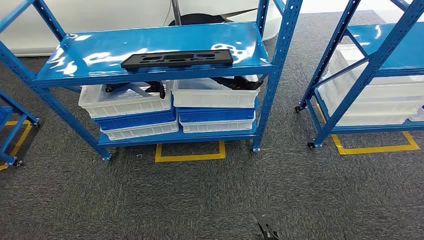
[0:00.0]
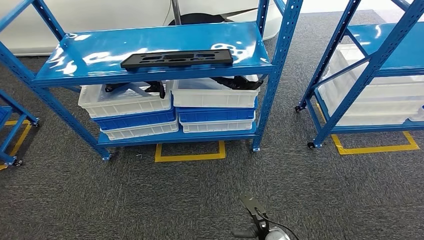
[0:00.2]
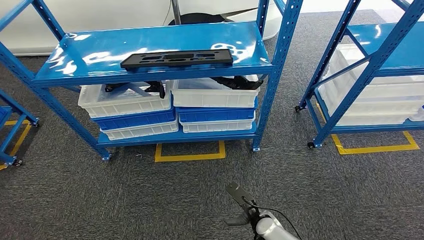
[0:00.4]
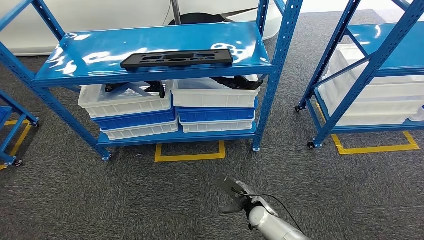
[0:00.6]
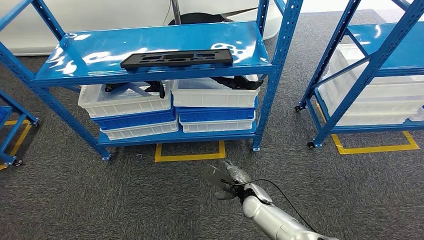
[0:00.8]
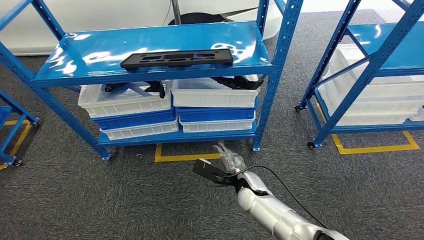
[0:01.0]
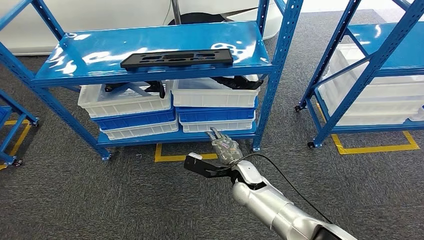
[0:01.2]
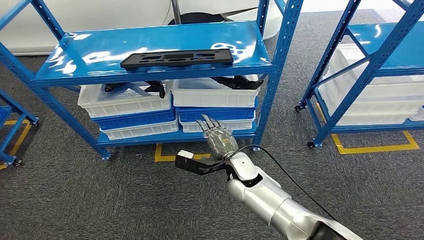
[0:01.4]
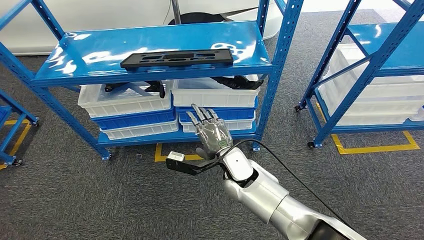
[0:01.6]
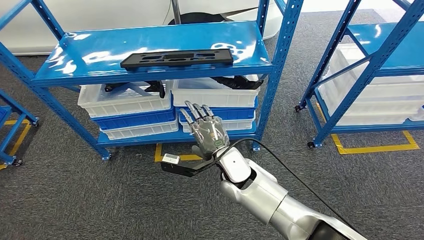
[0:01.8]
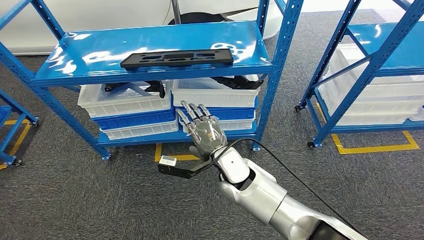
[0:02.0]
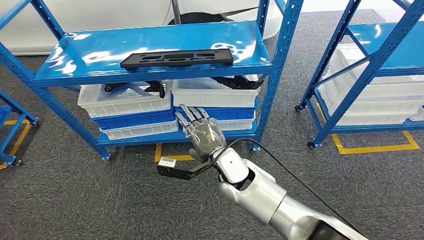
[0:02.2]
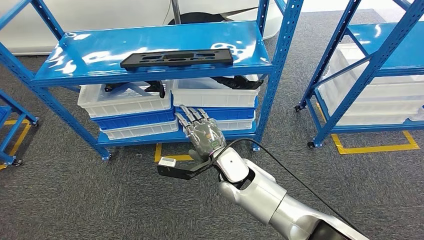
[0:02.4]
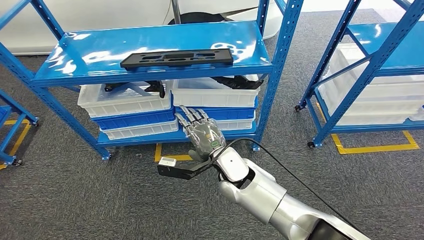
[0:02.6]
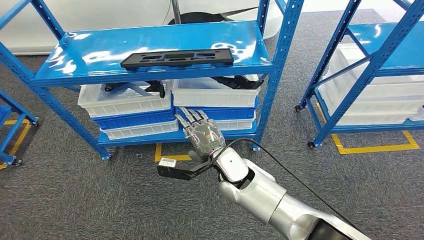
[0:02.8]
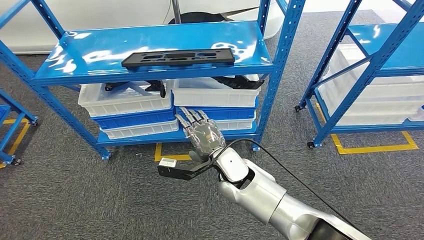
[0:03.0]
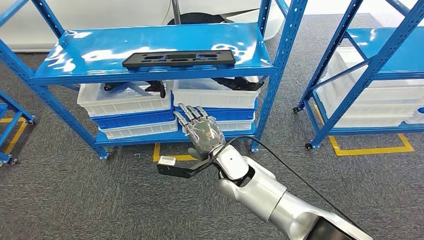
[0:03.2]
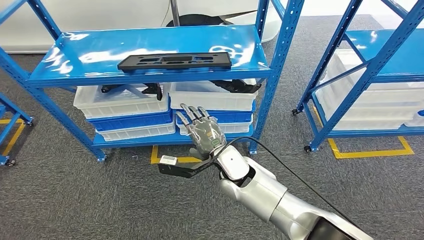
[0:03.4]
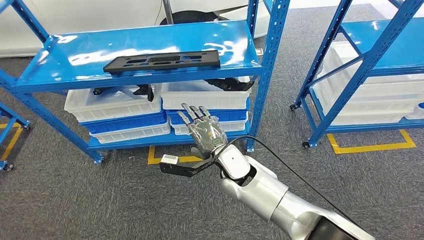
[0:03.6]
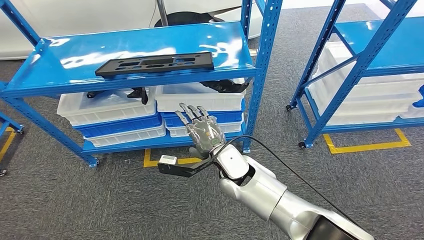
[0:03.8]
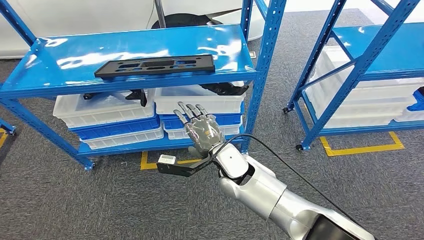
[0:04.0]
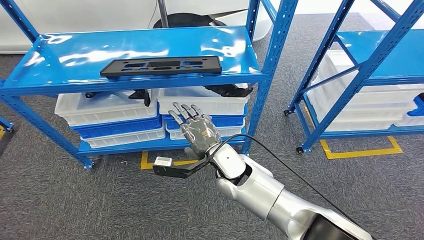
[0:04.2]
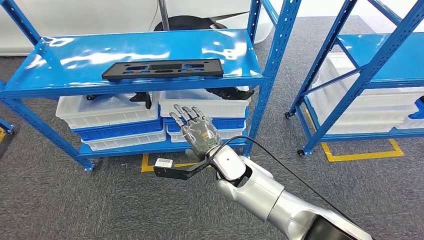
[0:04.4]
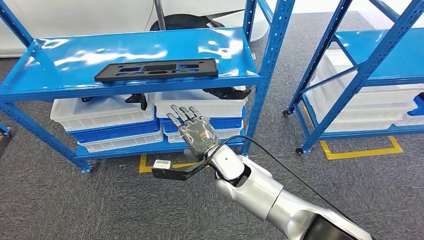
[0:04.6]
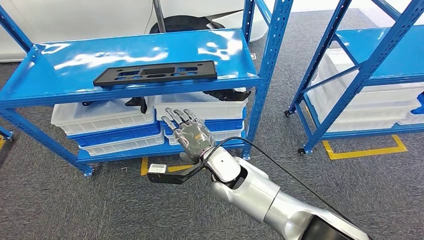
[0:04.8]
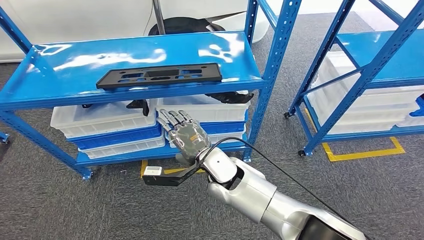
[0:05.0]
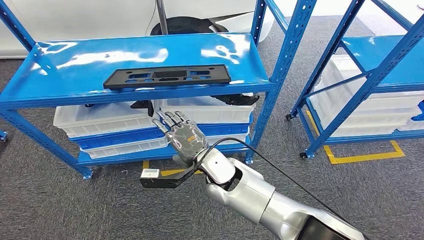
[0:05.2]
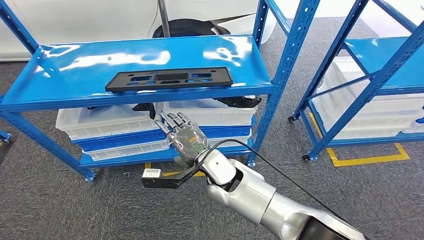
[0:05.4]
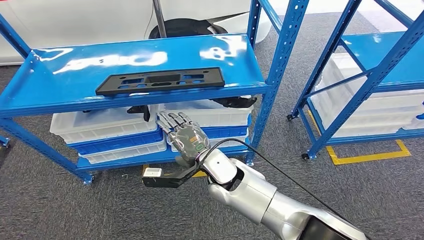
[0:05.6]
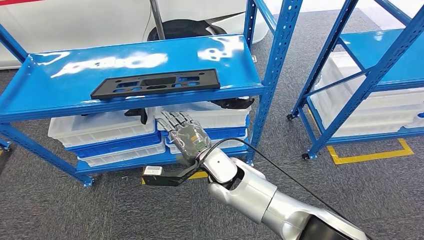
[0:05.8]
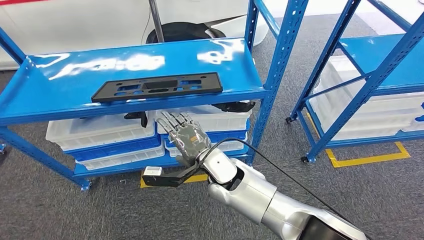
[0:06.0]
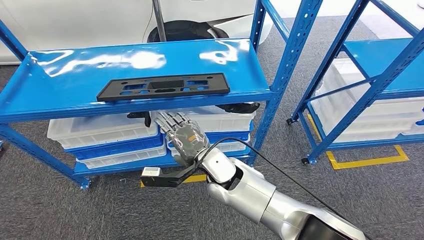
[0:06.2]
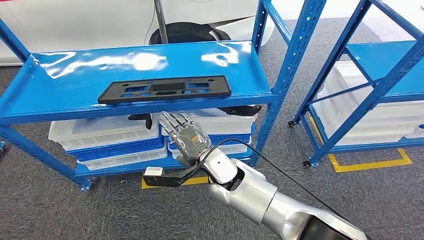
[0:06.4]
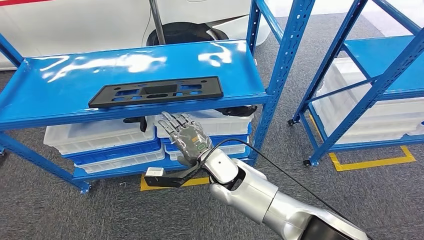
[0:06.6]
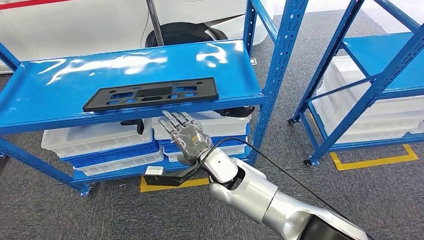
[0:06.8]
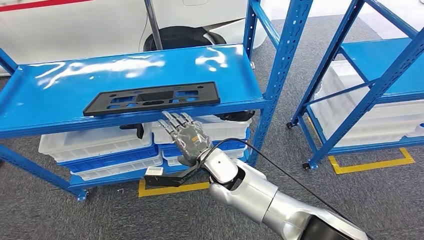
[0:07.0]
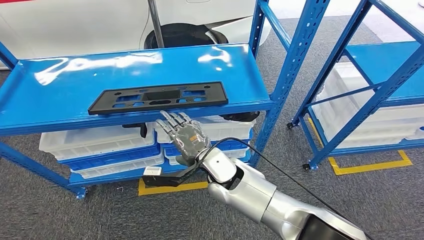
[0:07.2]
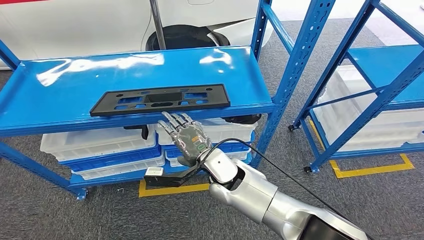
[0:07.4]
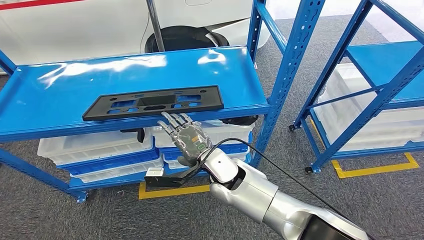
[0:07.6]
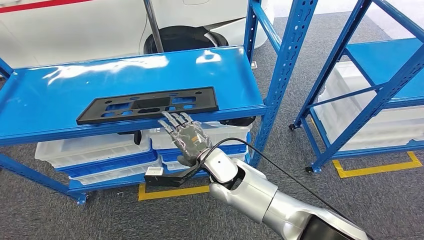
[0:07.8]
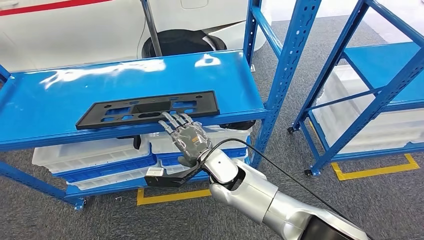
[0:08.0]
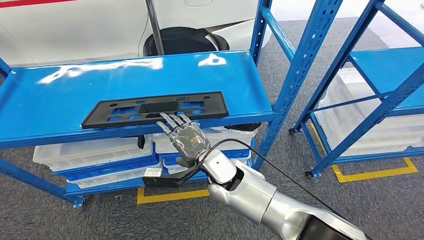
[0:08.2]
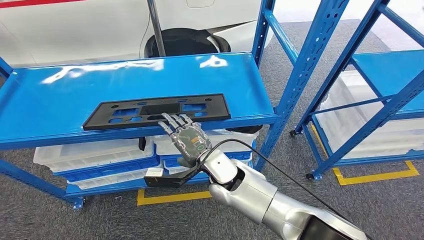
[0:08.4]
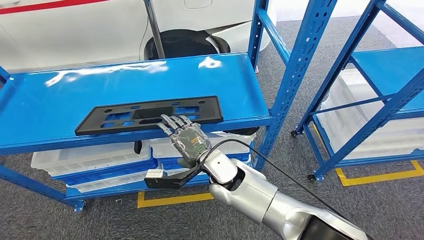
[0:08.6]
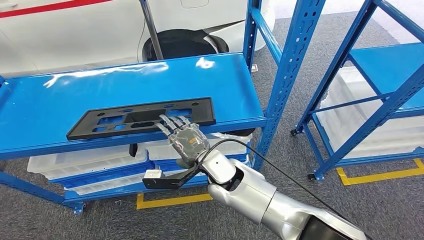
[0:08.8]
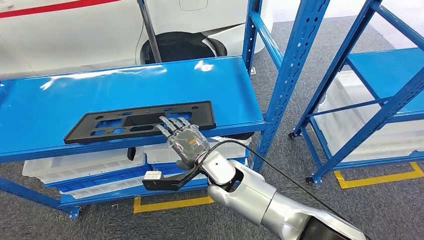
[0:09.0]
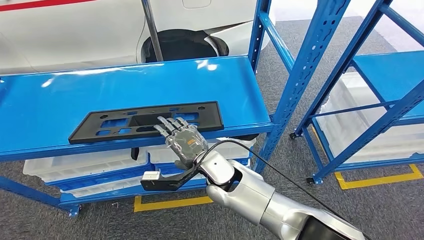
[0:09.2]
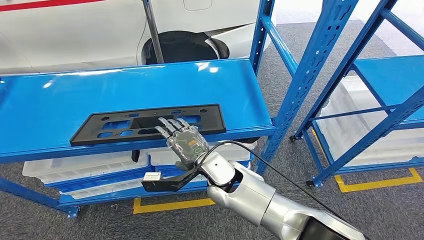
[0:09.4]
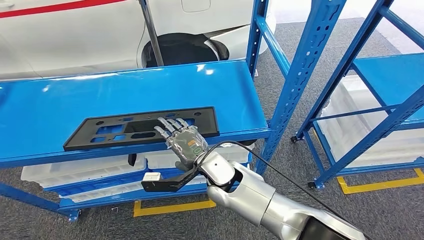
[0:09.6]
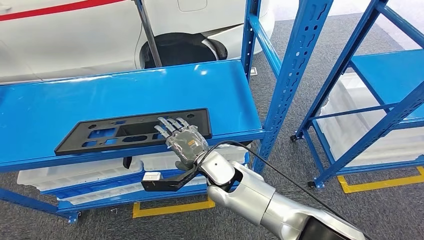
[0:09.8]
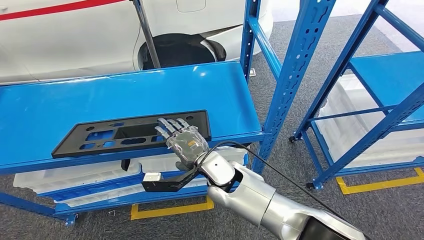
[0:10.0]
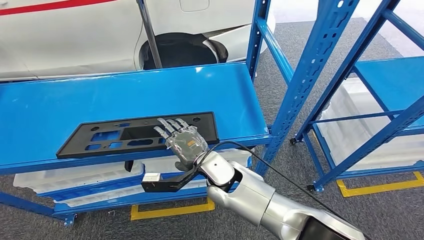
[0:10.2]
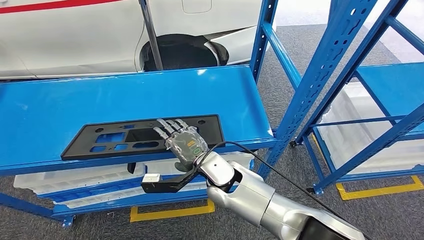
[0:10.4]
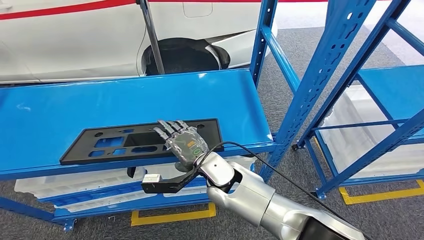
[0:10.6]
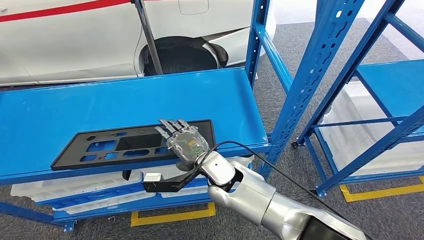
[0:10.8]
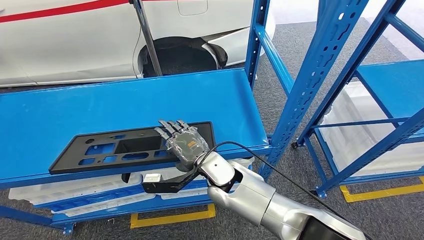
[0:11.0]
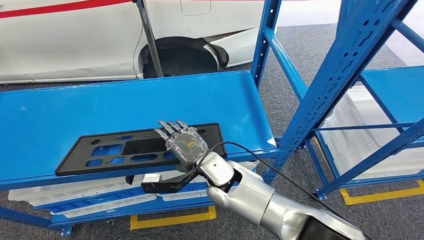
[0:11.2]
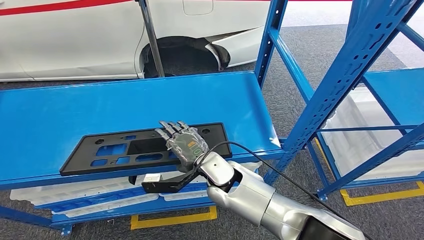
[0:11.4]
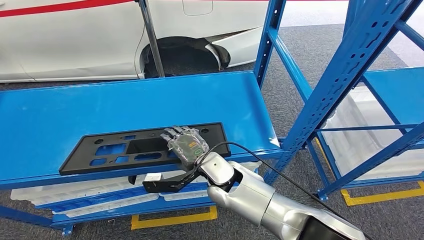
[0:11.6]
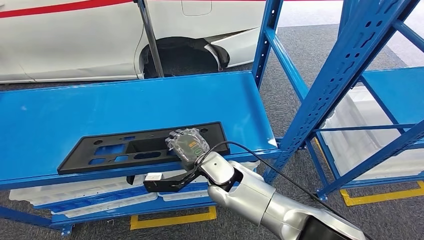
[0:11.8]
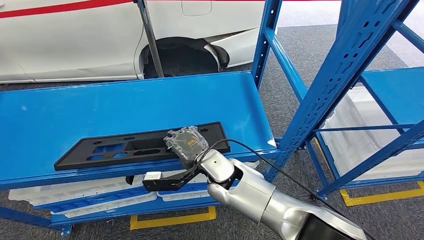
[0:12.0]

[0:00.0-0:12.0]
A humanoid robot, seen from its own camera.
0:01.6 to 0:03.0: The hands stay close to where they were, moving slightly.

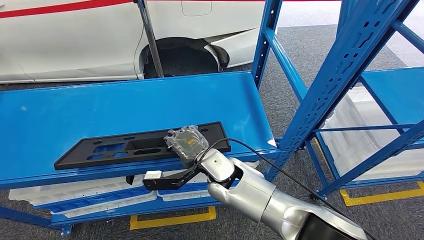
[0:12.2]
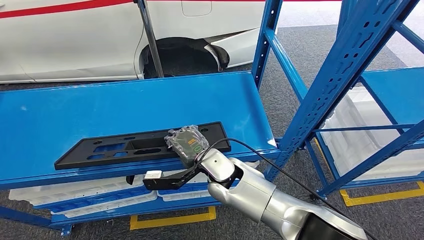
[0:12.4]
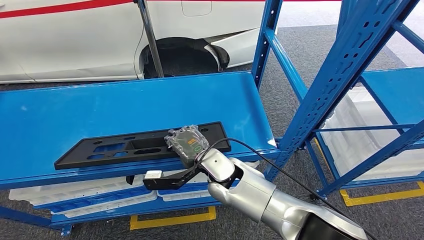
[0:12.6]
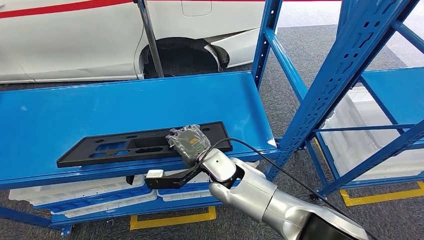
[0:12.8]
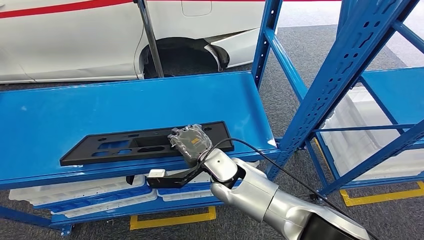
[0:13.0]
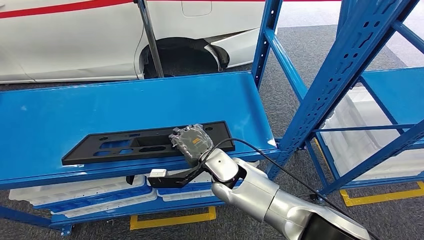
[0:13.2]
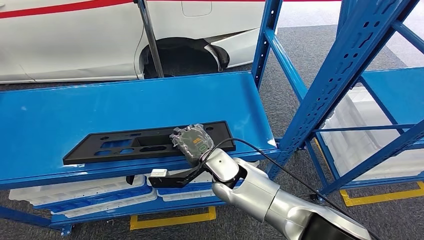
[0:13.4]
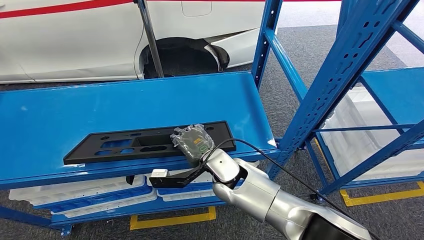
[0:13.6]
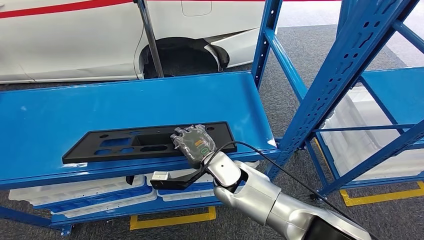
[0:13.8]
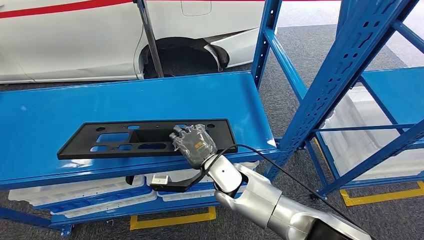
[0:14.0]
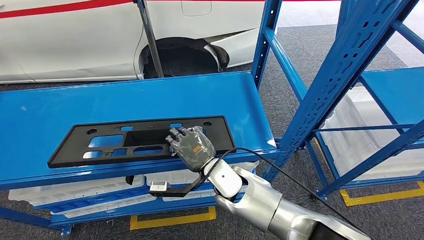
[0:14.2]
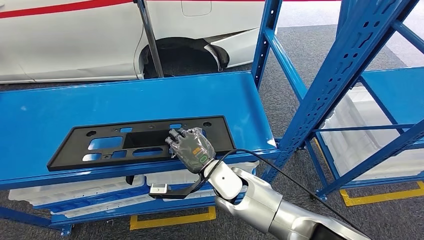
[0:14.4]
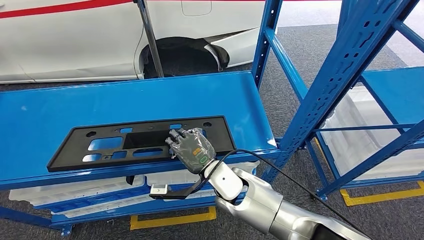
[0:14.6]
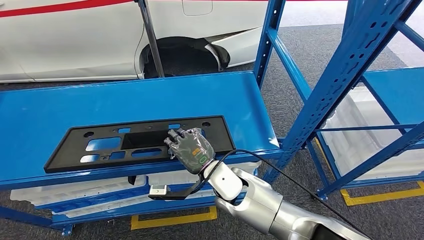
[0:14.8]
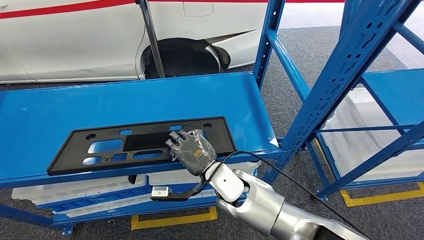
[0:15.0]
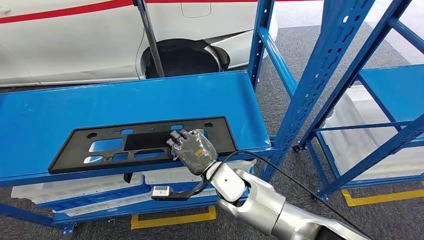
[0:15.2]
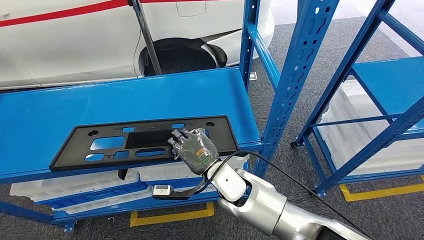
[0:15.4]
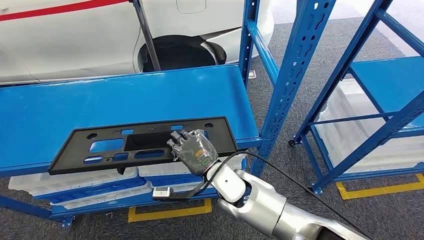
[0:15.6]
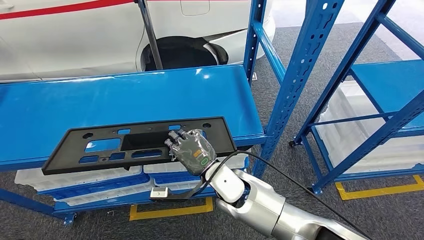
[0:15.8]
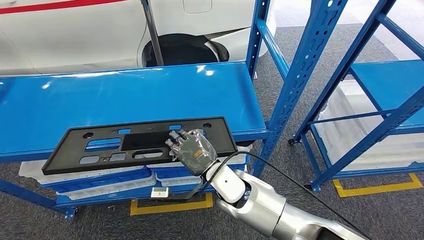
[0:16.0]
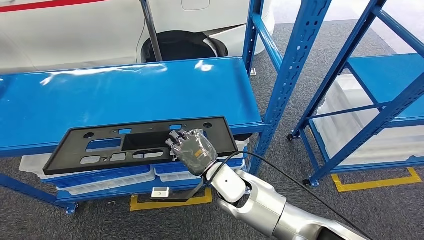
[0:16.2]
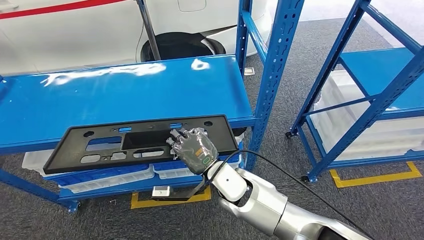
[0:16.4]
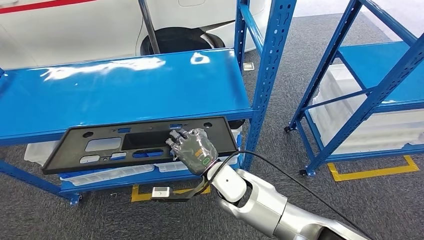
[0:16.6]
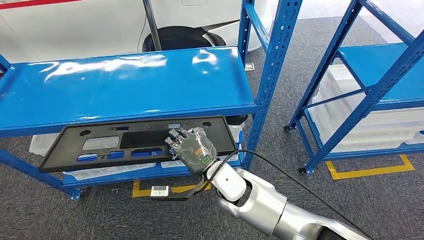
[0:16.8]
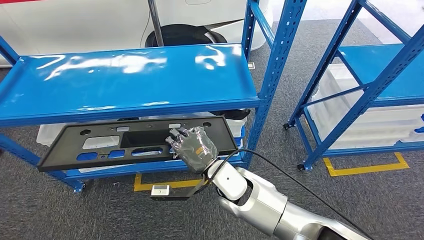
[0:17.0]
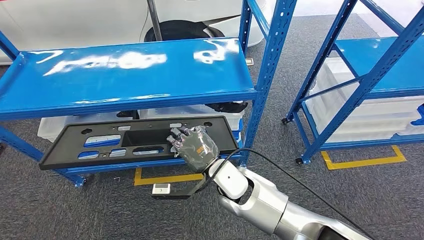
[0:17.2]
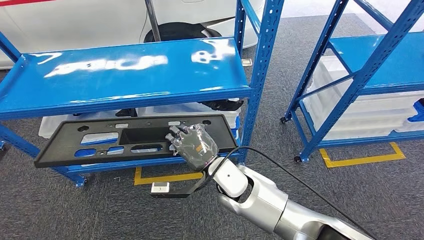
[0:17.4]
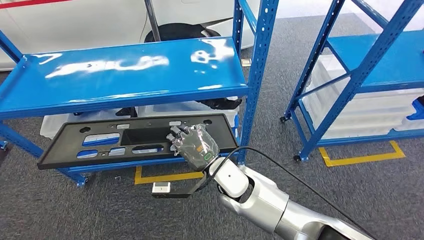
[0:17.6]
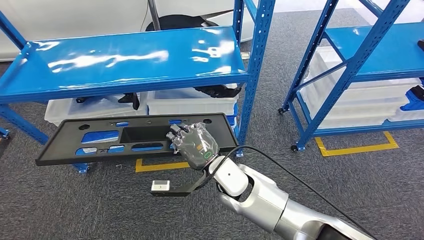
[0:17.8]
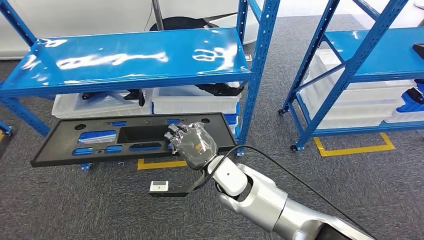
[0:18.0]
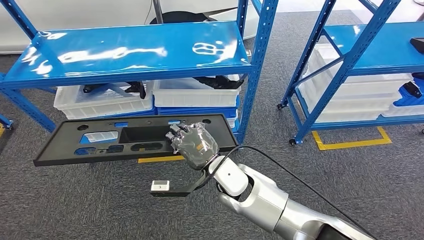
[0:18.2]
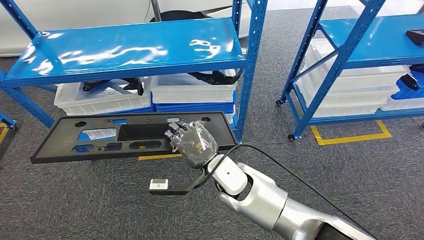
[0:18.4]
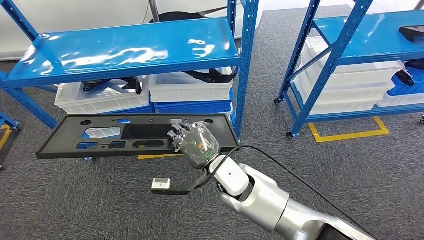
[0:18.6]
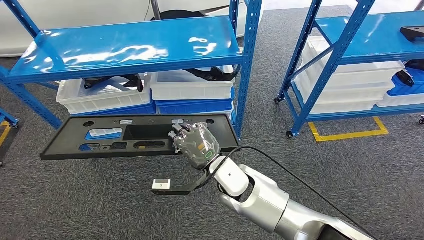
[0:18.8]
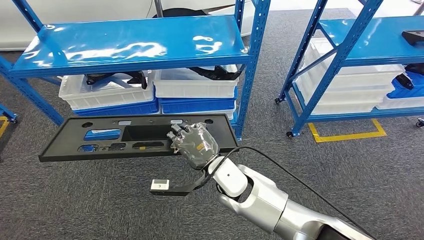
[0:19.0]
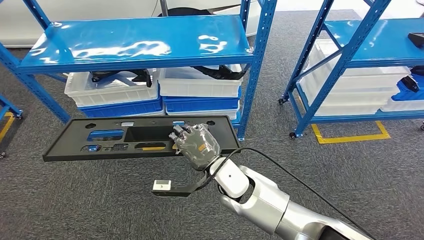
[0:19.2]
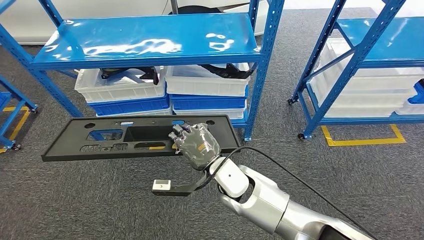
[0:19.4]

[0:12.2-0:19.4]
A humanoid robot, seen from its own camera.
Step, 0:12.2 to 0:16.4: Pick up the large material from the shelf.
0:12.2 to 0:13.6: The hands move only a little.
